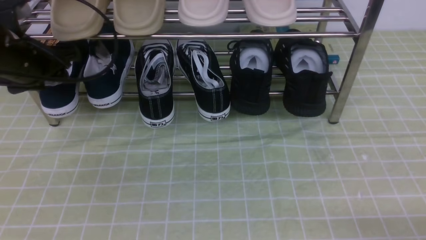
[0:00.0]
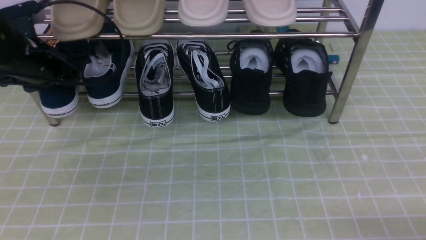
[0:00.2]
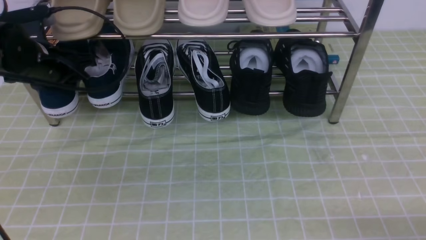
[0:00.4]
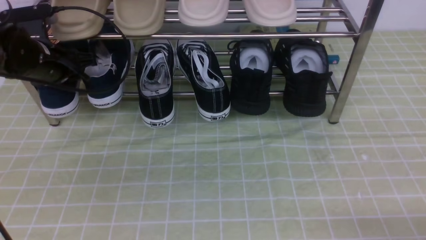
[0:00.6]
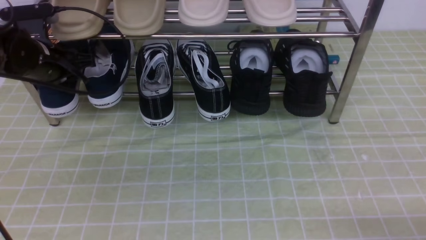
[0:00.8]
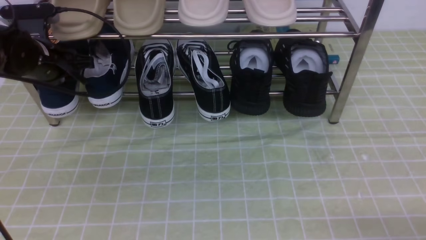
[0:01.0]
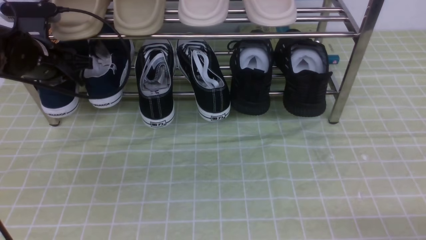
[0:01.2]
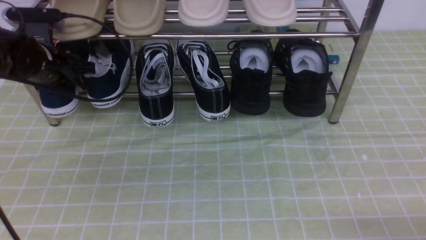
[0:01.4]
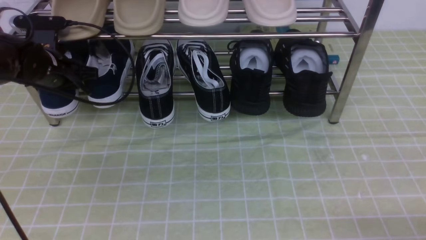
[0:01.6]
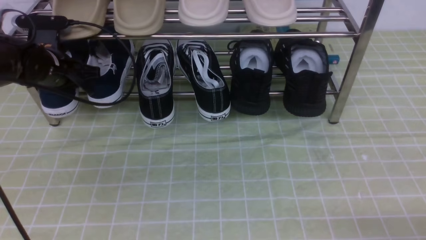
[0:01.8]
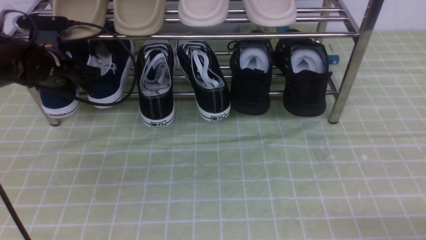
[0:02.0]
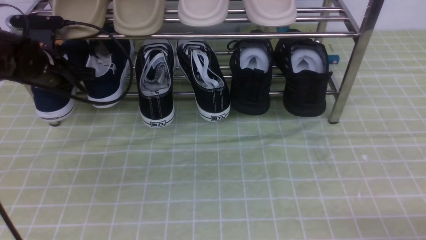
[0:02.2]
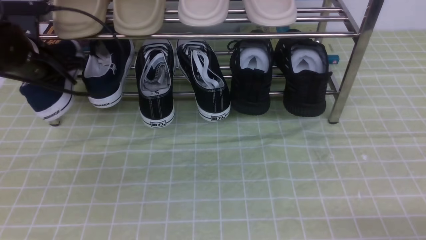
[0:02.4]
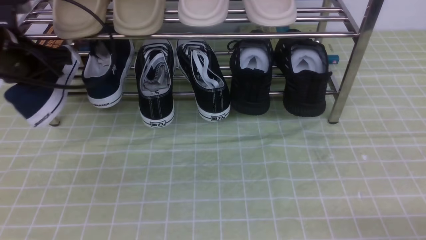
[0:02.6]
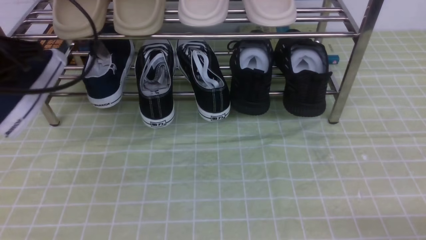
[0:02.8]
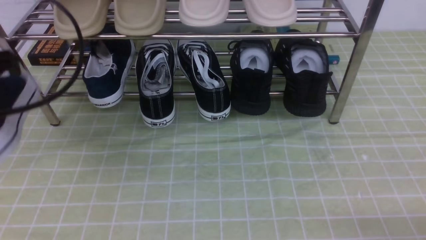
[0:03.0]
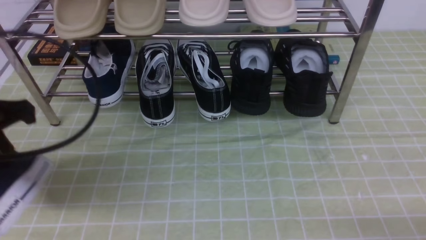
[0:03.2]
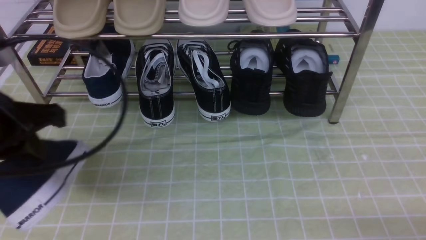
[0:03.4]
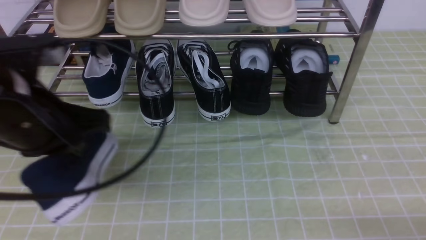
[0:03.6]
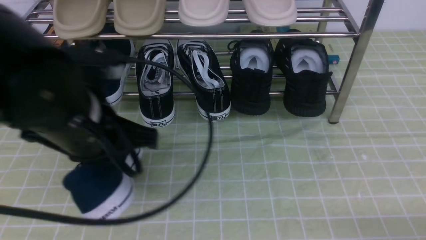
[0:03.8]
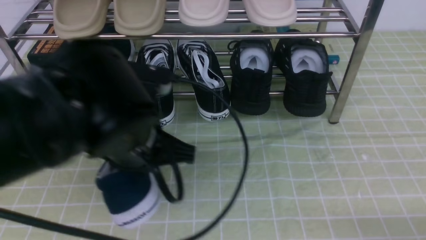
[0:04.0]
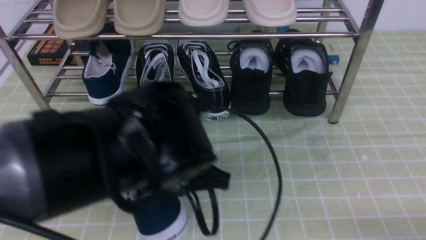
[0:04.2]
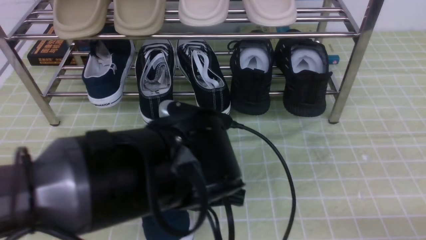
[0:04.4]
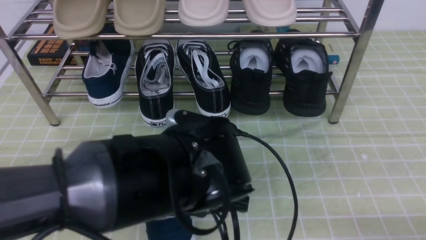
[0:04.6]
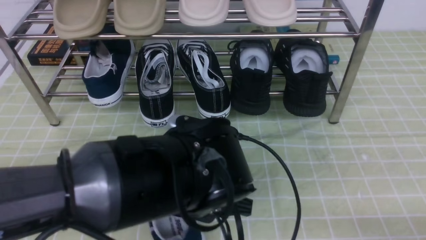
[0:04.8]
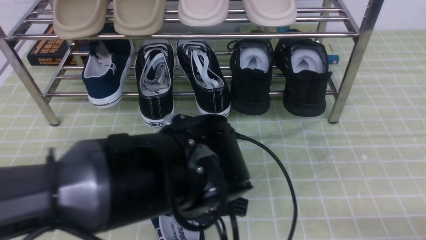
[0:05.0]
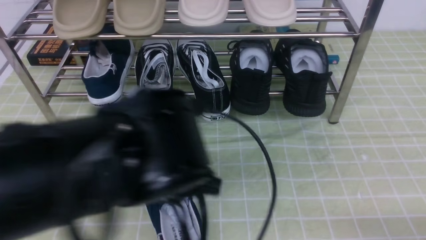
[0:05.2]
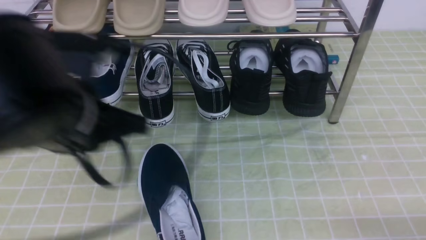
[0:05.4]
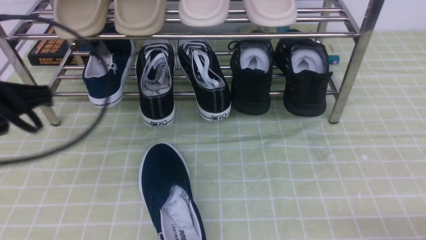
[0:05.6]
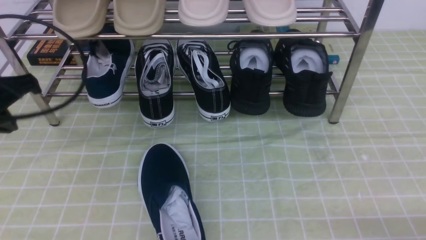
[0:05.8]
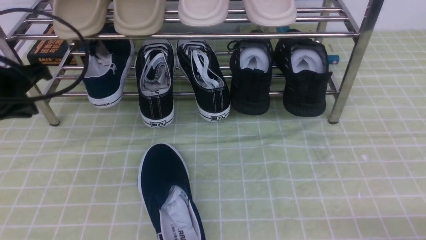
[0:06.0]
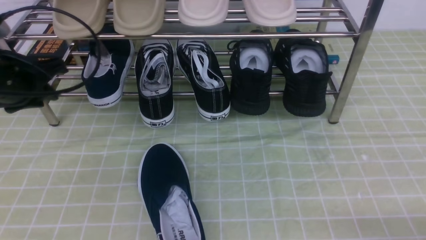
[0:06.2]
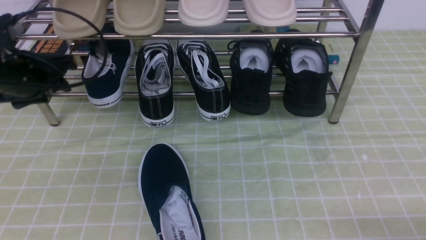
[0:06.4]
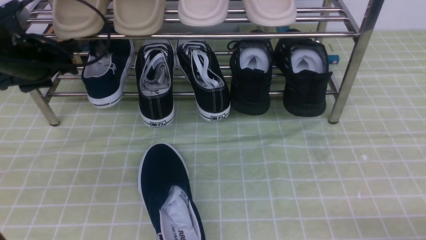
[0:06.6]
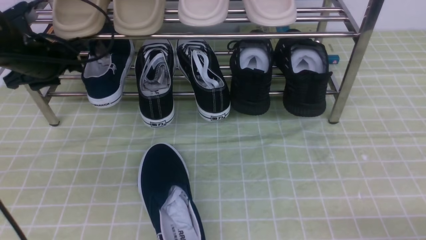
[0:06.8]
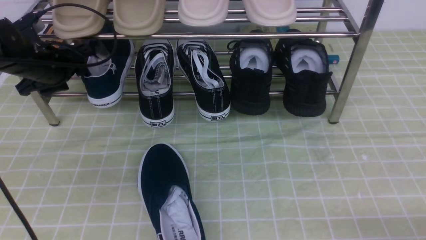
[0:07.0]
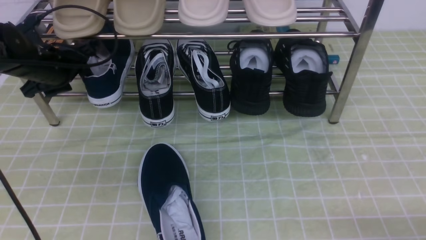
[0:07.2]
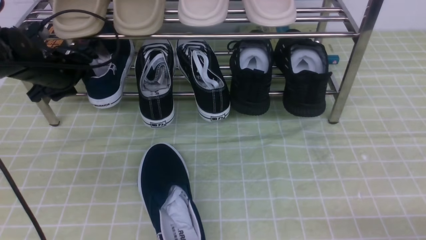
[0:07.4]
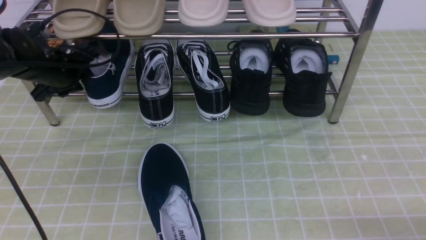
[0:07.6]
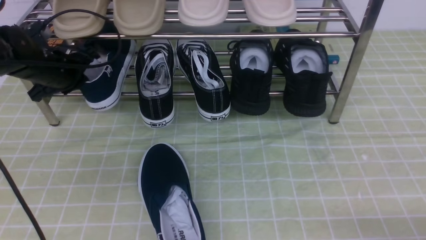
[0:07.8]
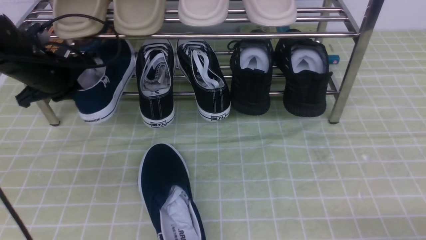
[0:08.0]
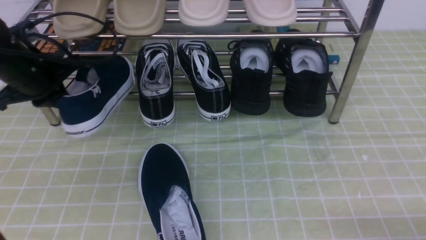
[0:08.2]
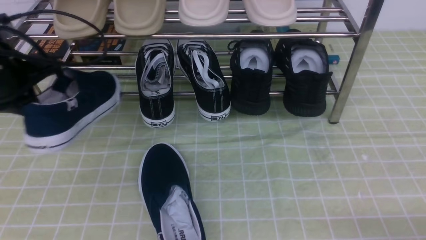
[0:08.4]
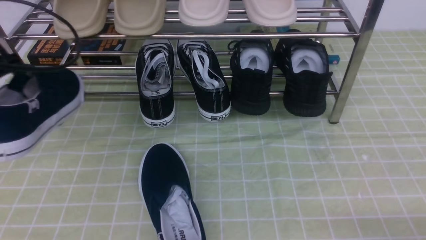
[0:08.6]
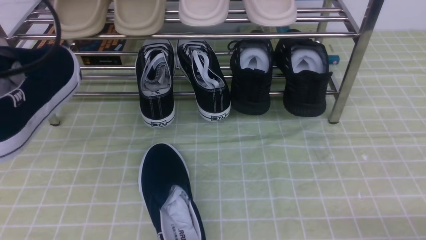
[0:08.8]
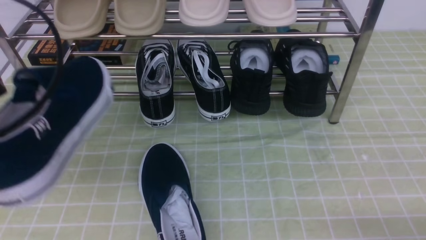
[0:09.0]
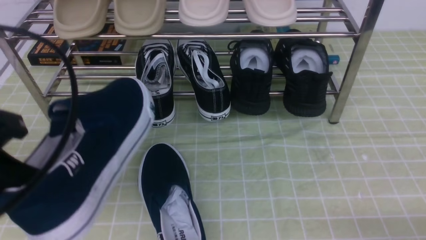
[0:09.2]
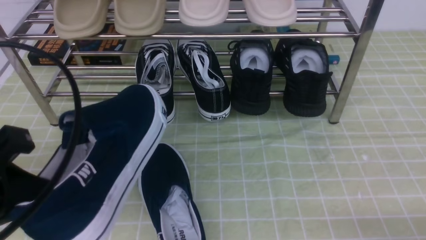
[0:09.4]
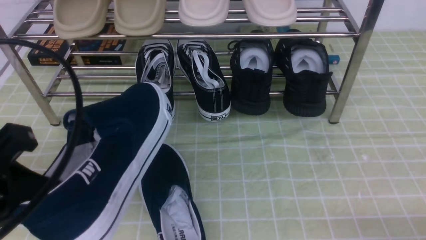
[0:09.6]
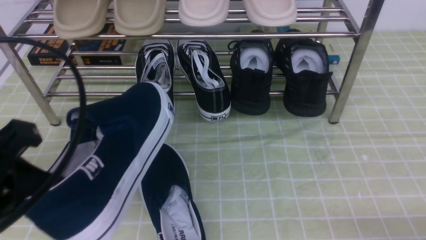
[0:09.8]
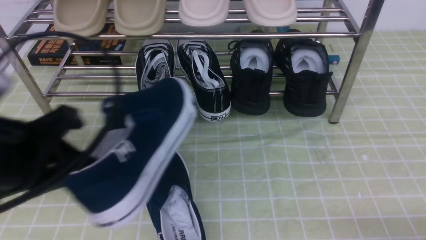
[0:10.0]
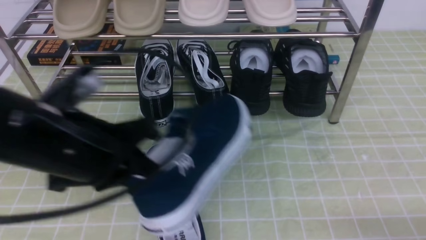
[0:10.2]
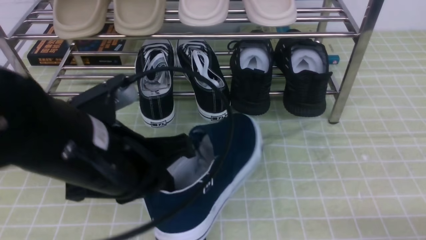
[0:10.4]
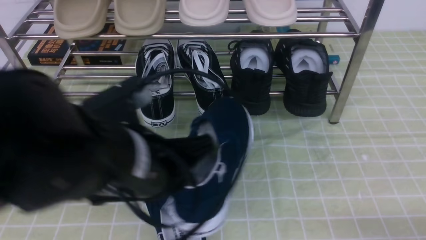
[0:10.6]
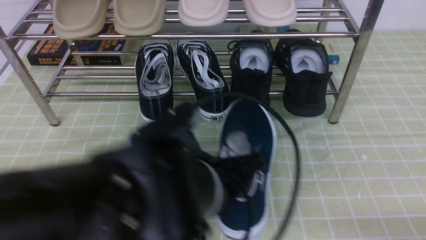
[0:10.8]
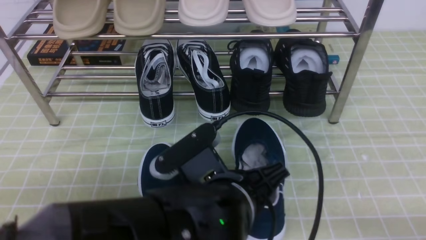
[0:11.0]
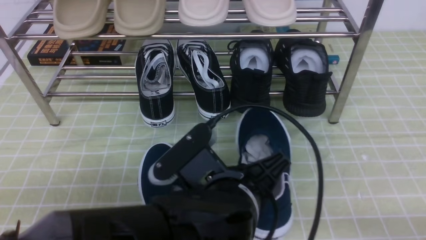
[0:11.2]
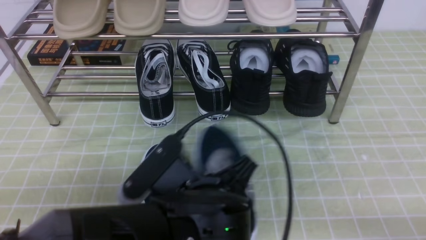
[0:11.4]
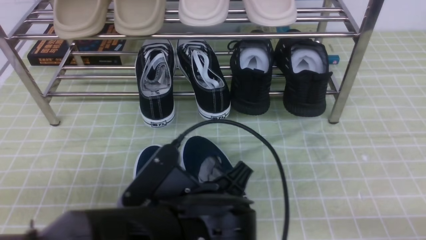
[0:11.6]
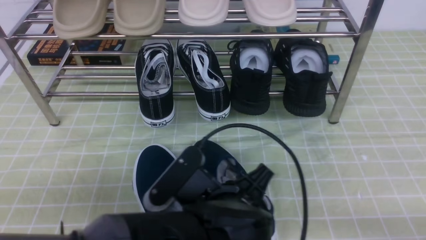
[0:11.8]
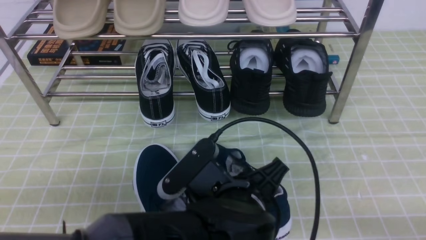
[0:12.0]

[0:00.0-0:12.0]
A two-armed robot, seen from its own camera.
Step, 0:00.0 to 0:02.0: use the left arm to clamp a shoe on the left side of the shoe rack.
Step, 0:02.2 to 0:05.0: Use your left arm to remove the clamped shoe from the shoe rack and put it down.
Step, 0:05.2 to 0:07.8: use the left arm to clamp a shoe on the left side of the shoe rack.
0:00.0 to 0:01.6: The left gripper goes about 10 cm downward and forward.
0:01.6 to 0:03.0: The left gripper moves backward and upward, about 20 cm, and closes up.
0:03.0 to 0:04.4: The left gripper goes roughly 25 cm to the right and downward.
0:04.4 to 0:06.0: The left gripper shifts about 25 cm to the left.
0:06.0 to 0:07.6: The left gripper heads forward and downward, covering some 15 cm, and opens and closes again.
0:07.6 to 0:09.0: The left gripper moves backward and upward, approximately 30 cm, and closes.
0:09.0 to 0:10.4: The left gripper travels to the right and downward by roughly 15 cm.
0:10.4 to 0:12.0: The left gripper goes approximately 15 cm to the right and downward.

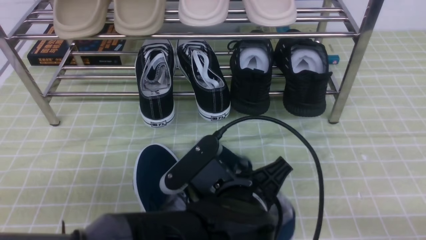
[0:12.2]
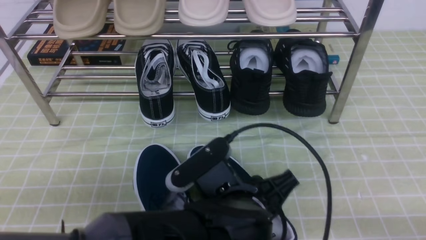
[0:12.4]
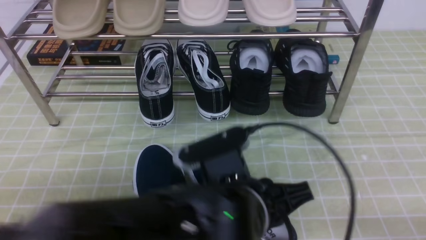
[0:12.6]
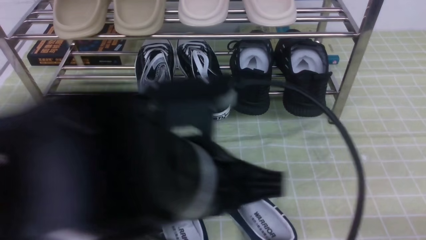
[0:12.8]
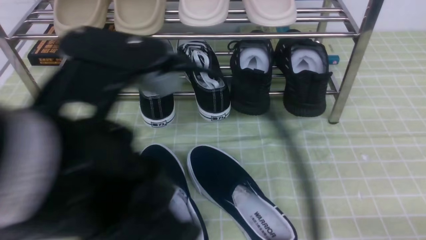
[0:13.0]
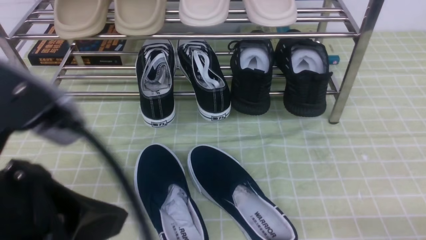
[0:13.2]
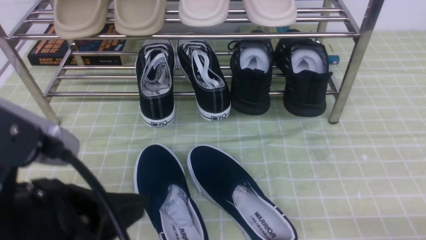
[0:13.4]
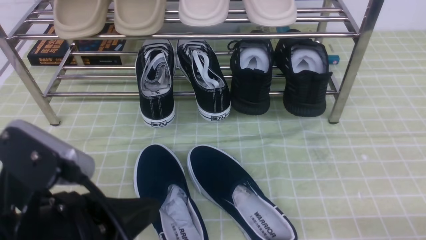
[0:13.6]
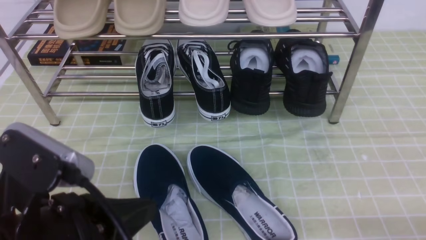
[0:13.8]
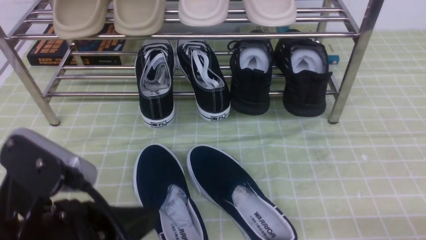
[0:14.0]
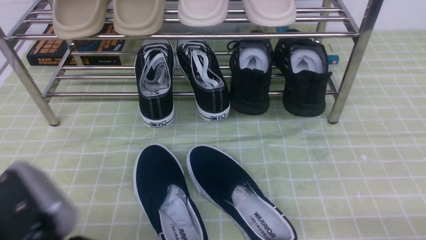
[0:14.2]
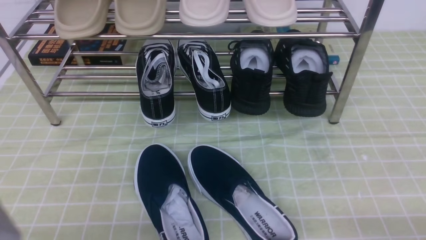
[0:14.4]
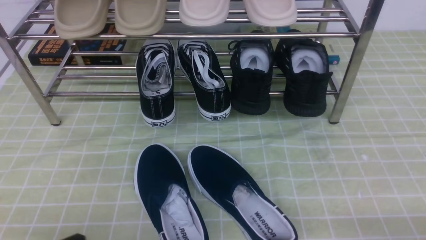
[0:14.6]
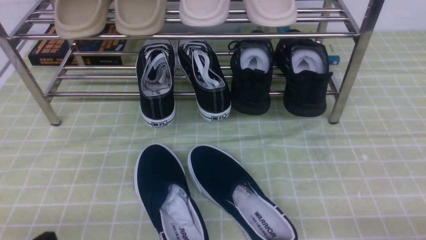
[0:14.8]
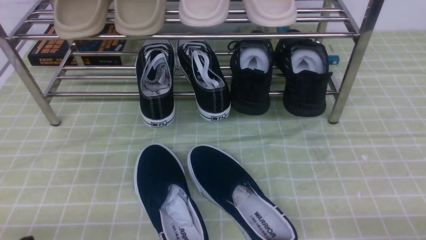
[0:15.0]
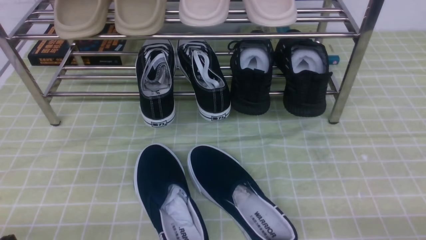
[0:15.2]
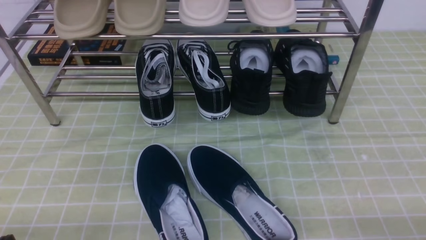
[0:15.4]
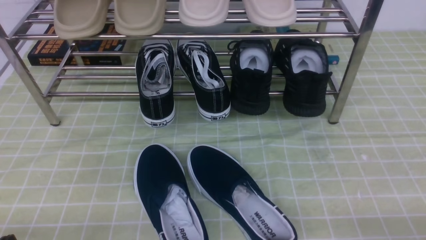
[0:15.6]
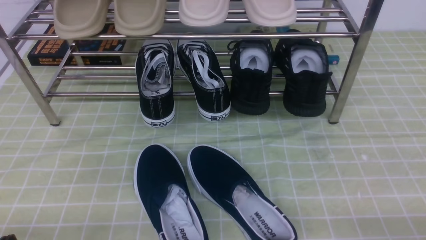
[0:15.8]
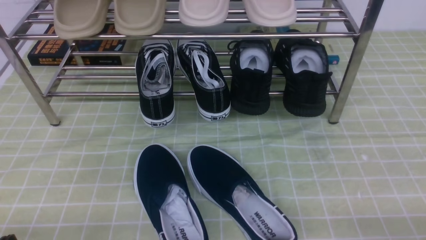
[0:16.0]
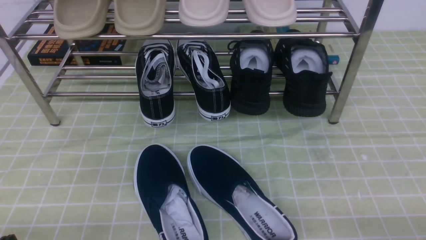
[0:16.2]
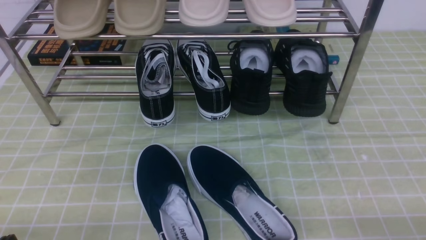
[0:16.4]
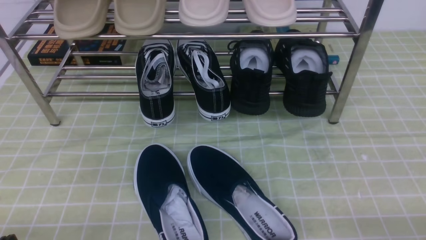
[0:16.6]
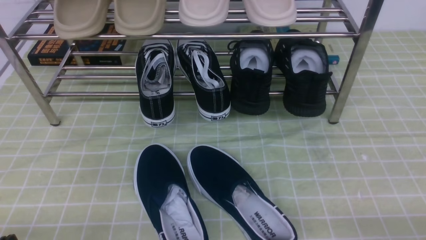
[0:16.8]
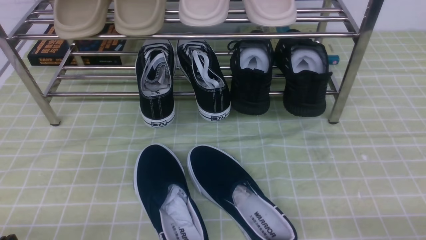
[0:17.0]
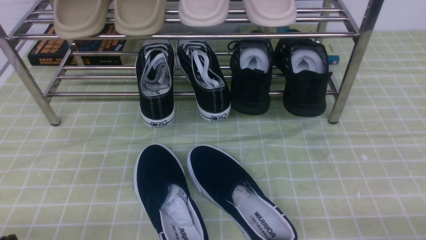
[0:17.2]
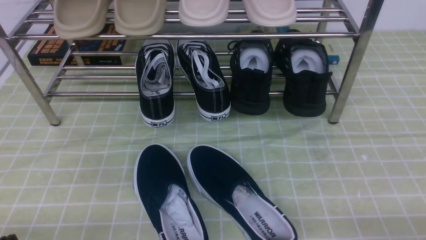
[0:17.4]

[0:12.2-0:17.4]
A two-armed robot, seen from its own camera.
0:12.2 to 0:14.0: The left gripper heads to the left and backward, covering approximately 20 cm, and closes.
0:14.0 to 0:15.6: The left gripper shifts about 15 cm downward and to the left.
0:15.6 to 0:17.4: Both grippers stay put.
